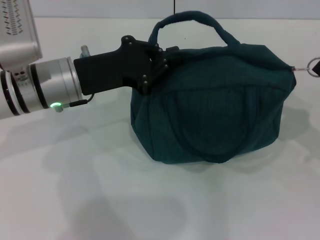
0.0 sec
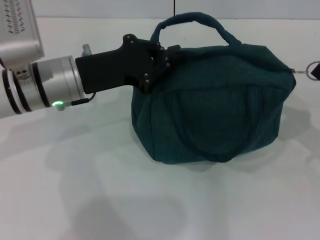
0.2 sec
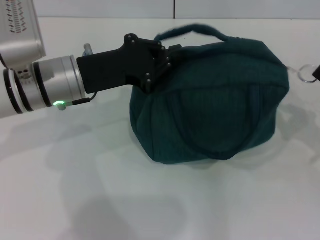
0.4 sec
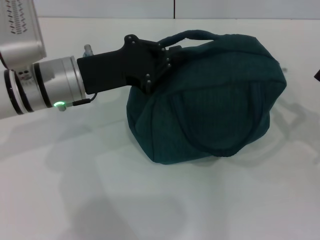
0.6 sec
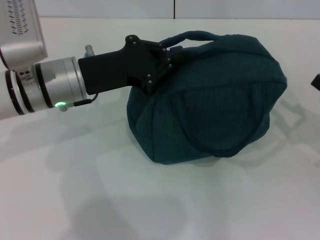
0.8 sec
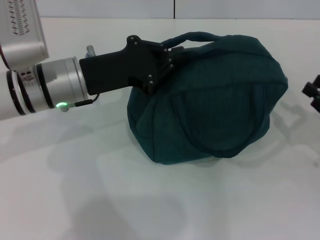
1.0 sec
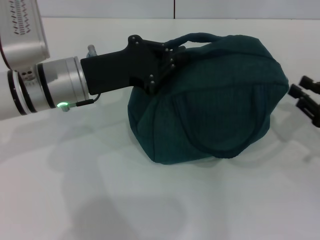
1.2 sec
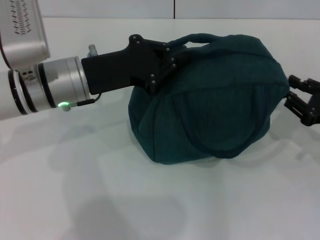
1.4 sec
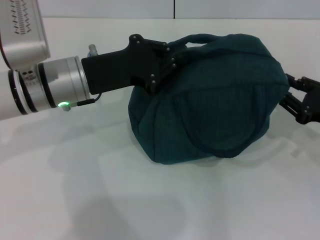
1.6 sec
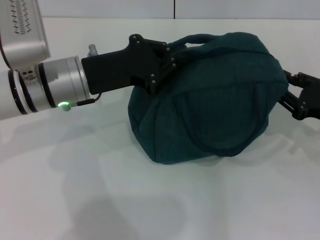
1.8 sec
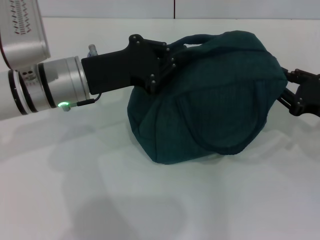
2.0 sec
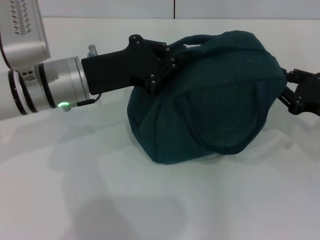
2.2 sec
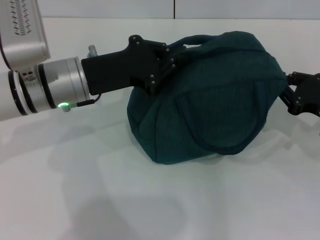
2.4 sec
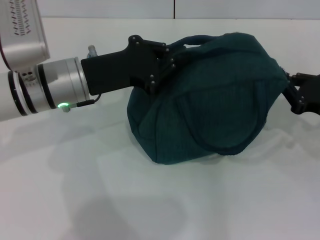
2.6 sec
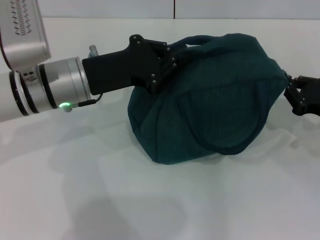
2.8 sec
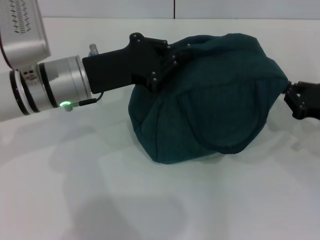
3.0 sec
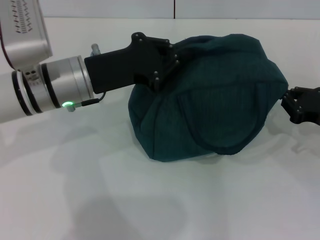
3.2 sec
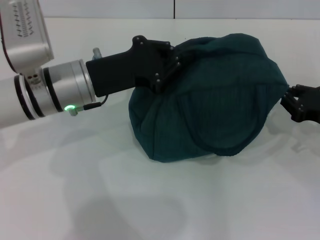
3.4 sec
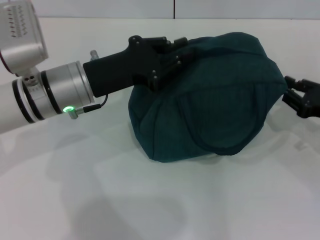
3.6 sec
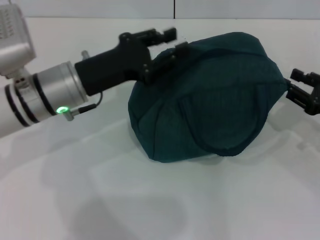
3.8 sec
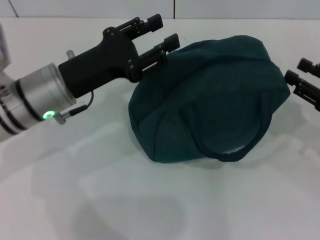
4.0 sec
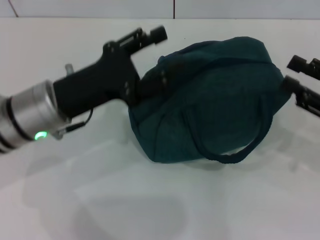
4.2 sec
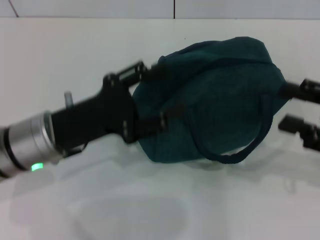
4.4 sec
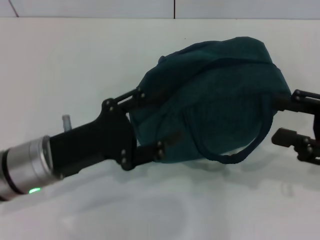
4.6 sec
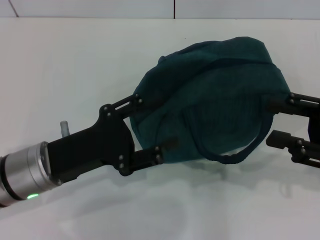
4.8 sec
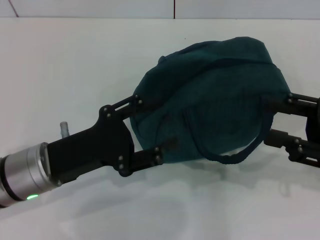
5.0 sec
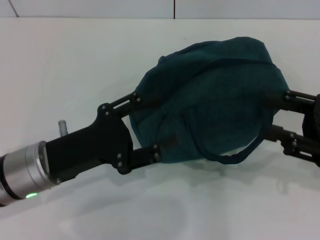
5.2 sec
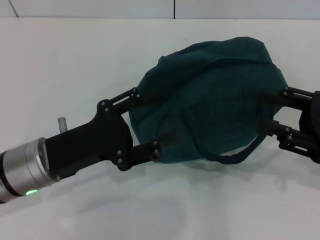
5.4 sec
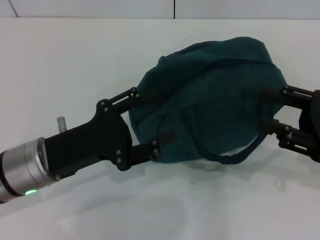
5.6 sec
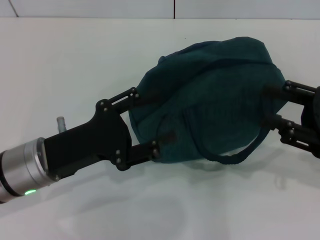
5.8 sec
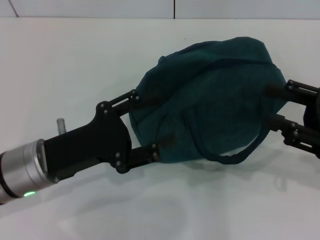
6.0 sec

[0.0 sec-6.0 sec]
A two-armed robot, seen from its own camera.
Step, 0.0 sec to 3.6 sec: Hold the lunch bag with your left hand.
0.0 sec to 1.6 sec: The right gripper opens its fingers.
1.6 sec to 3.0 sec: The right gripper closes up.
3.0 sec to 4.4 sec: The left gripper is displaced backward by about 5 cm, and opens. Meanwhile the right gripper goes approximately 10 cm upward and backward, and opens up.
4.4 sec to 6.0 sec: The grippers make only small movements.
